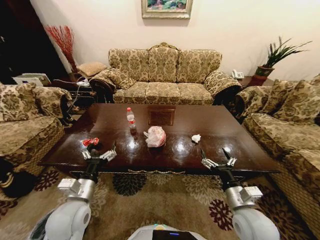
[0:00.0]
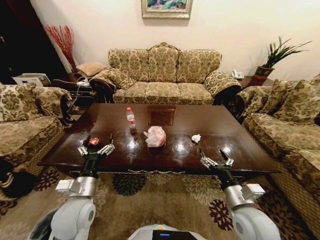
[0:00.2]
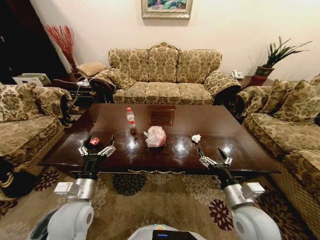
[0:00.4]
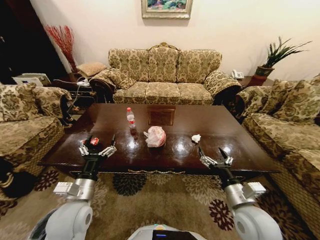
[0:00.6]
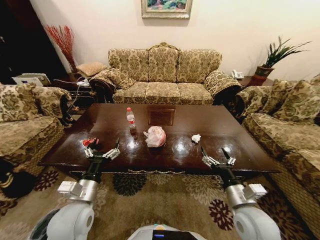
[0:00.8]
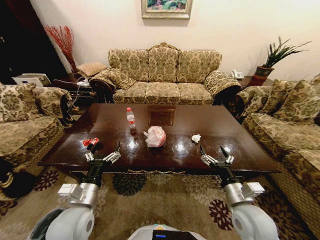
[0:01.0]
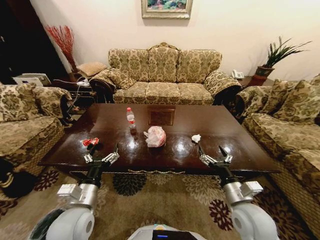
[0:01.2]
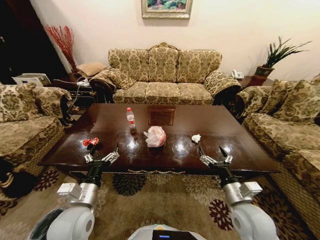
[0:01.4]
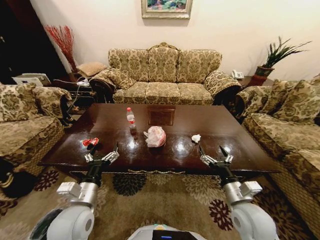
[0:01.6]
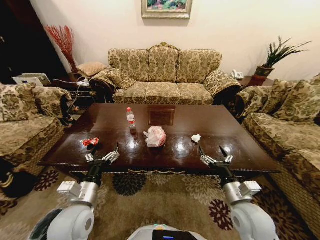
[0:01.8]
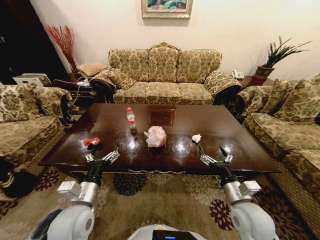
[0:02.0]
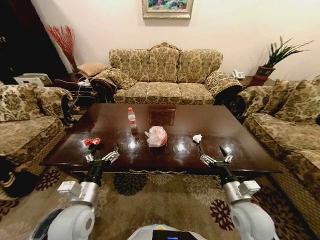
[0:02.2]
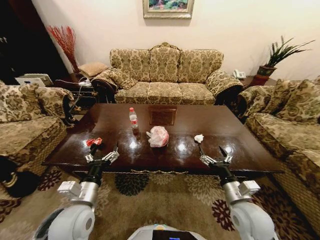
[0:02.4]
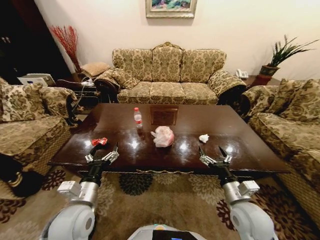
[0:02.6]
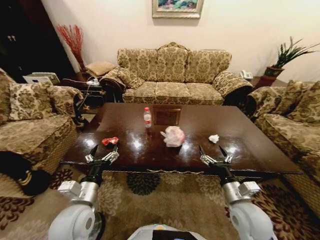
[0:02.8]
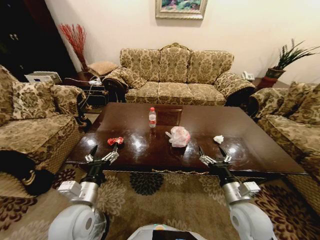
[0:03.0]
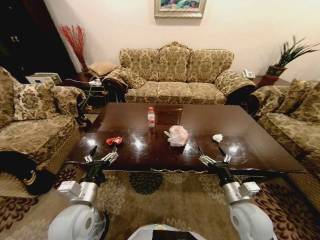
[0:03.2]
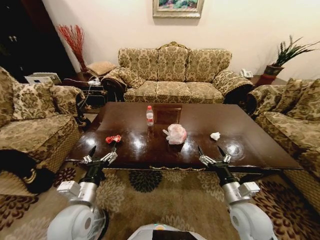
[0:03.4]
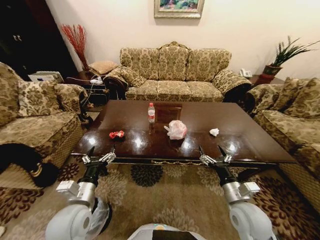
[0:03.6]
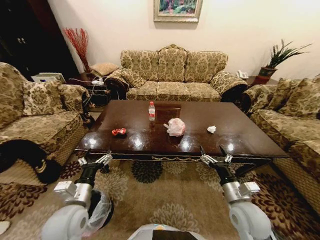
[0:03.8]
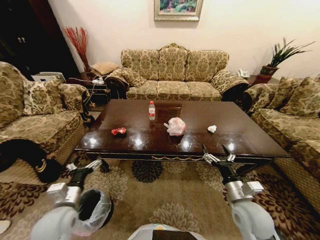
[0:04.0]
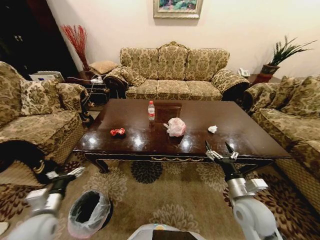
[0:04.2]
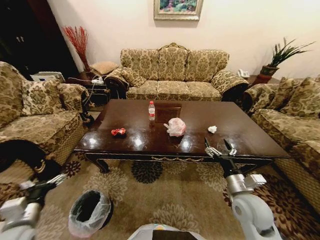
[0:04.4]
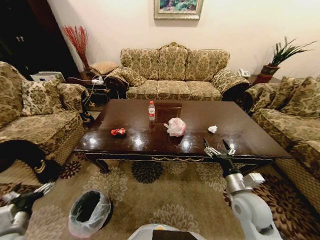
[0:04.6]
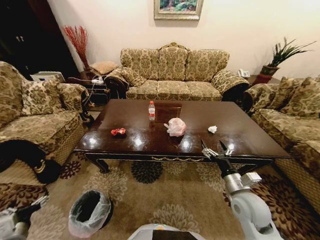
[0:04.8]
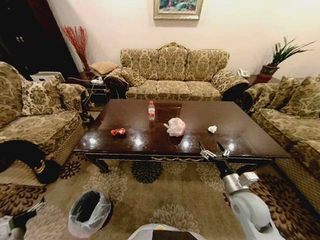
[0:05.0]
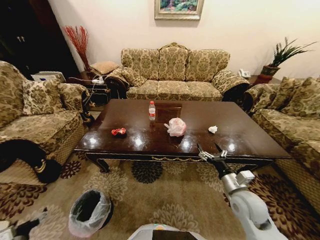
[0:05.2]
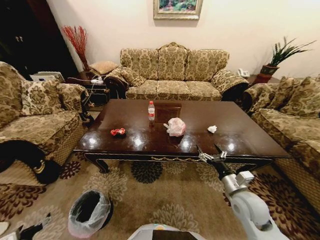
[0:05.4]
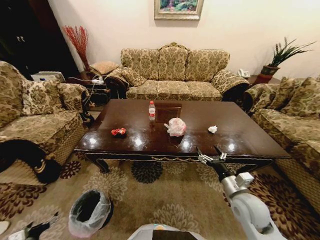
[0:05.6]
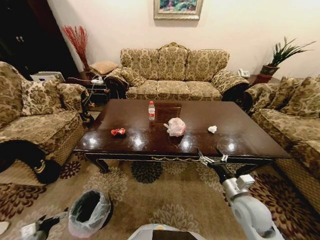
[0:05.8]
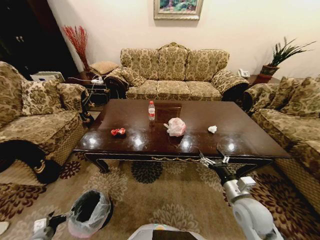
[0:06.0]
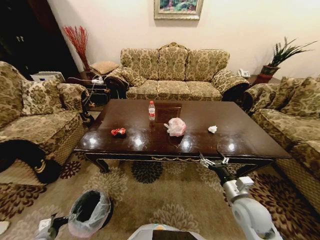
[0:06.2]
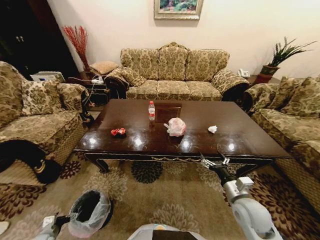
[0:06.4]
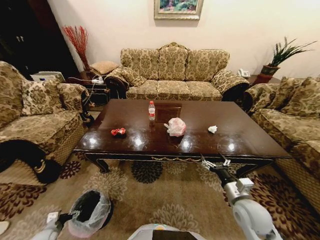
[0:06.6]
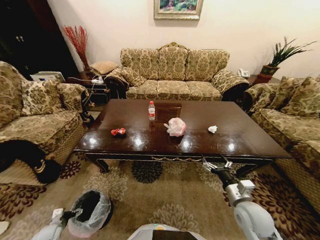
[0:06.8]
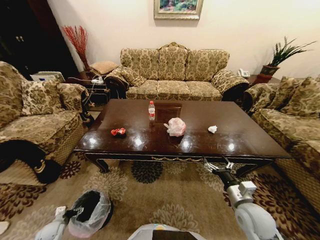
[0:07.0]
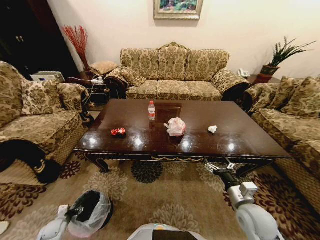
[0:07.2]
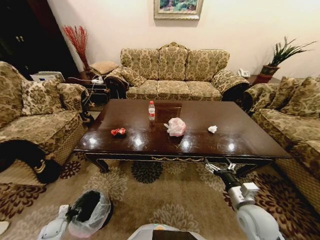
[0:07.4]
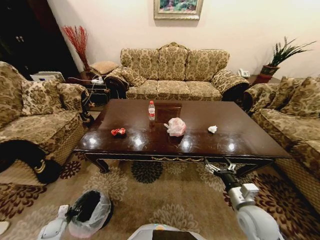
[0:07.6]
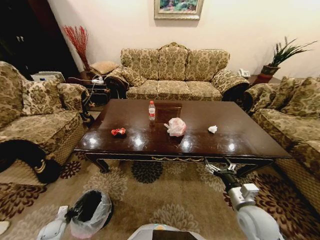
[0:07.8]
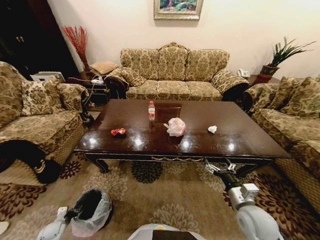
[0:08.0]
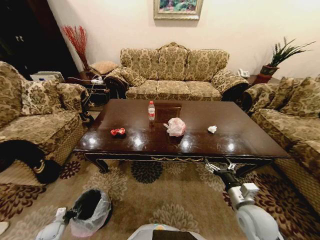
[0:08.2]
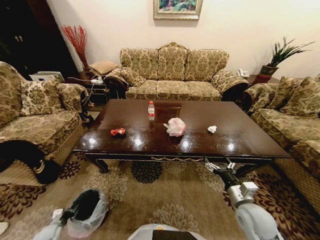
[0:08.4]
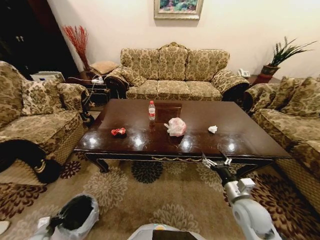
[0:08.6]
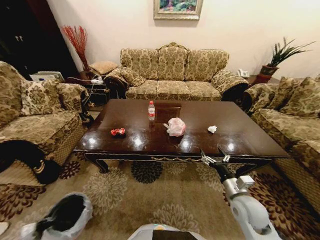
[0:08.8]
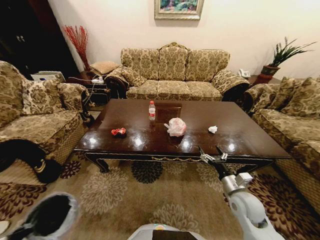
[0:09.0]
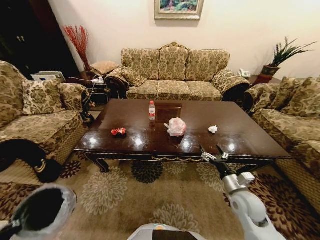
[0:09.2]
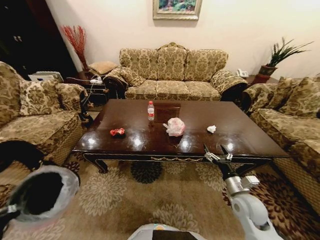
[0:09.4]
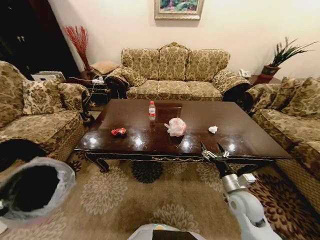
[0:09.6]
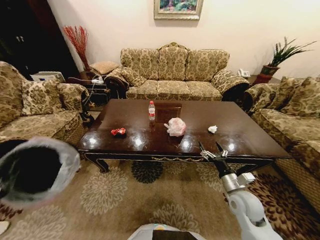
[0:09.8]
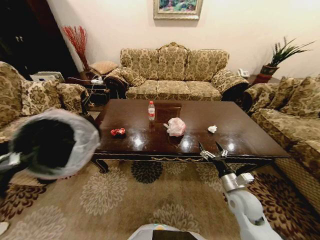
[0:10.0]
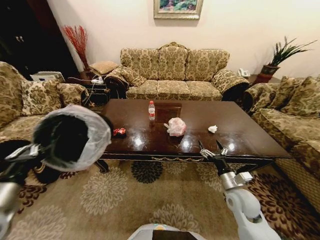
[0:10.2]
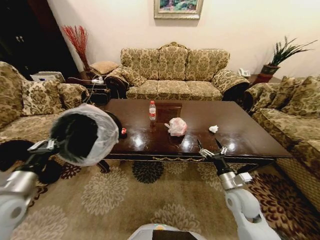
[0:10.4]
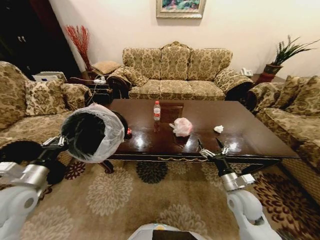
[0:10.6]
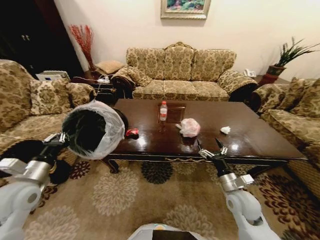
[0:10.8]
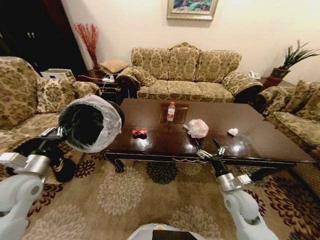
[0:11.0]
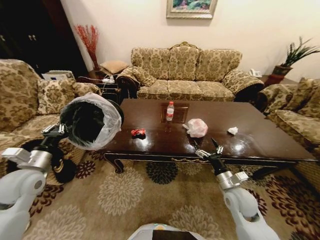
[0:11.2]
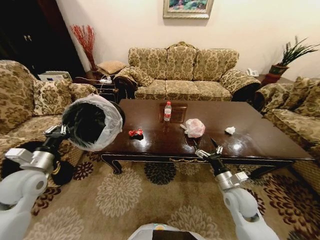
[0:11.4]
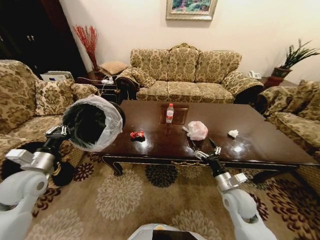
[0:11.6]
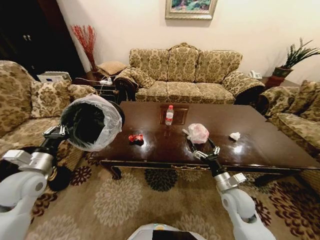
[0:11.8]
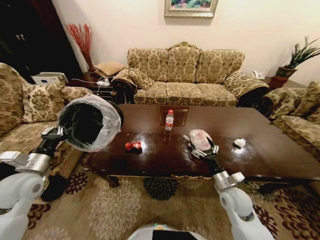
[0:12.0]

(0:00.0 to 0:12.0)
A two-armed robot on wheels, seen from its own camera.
Task of the whole recording: Move to the front of the table and place the trash on the table into the trash bin.
0:03.0 - 0:04.4: The left gripper moves to the left, approximately 15 cm.
0:04.4 - 0:06.0: The left gripper heads downward and to the left, covering approximately 20 cm.
0:06.0 - 0:07.6: The left gripper travels downward and forward by about 15 cm, and closes its fingers.
0:07.6 - 0:09.0: The left gripper moves backward and upward, some 15 cm, and closes up.
0:09.0 - 0:10.4: The left gripper heads upward, to the right and forward, covering about 35 cm.
0:10.4 - 0:12.0: The left gripper shifts about 5 cm forward.

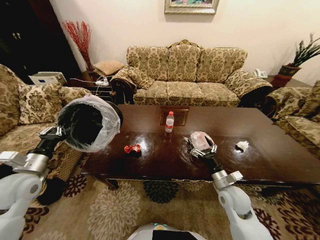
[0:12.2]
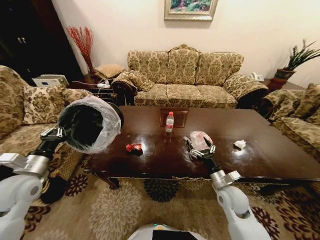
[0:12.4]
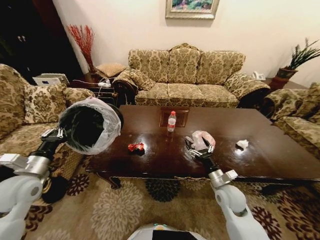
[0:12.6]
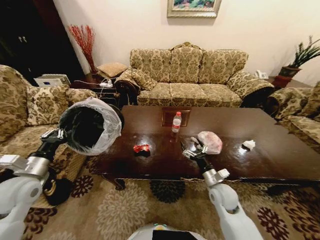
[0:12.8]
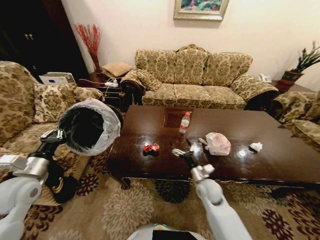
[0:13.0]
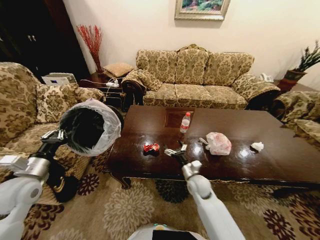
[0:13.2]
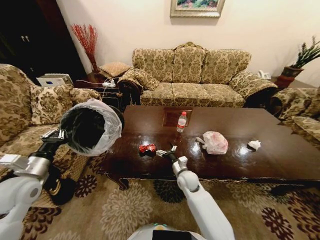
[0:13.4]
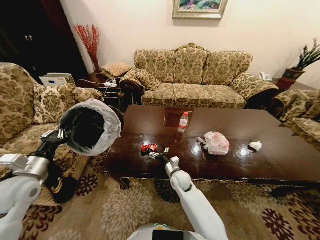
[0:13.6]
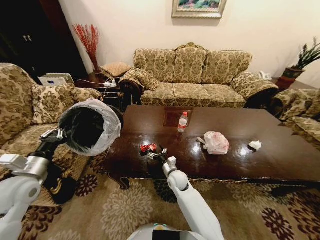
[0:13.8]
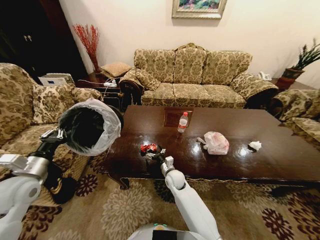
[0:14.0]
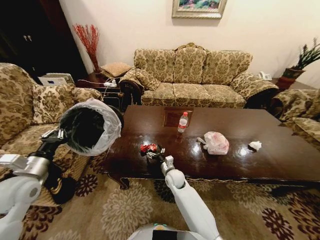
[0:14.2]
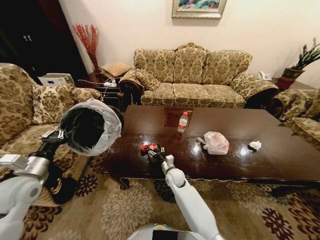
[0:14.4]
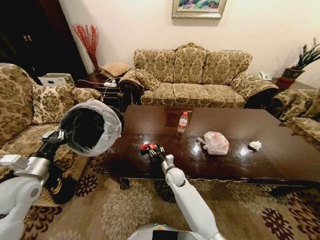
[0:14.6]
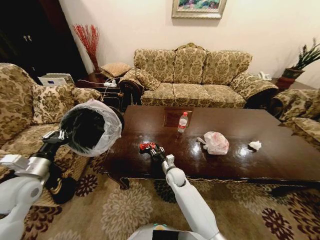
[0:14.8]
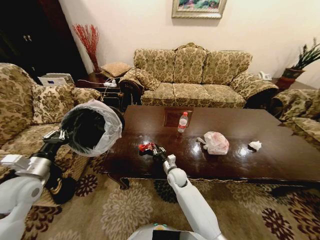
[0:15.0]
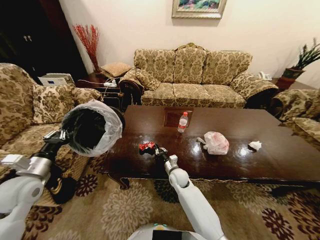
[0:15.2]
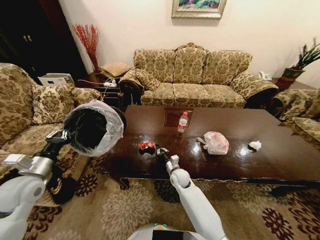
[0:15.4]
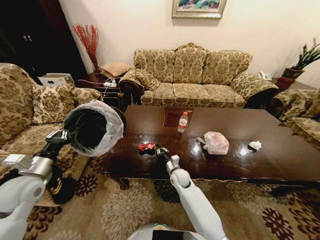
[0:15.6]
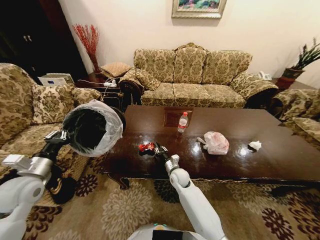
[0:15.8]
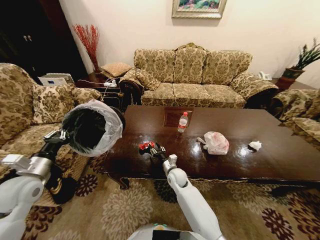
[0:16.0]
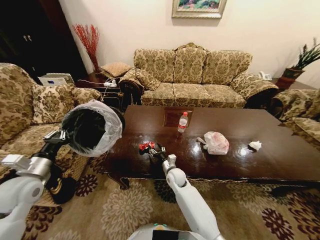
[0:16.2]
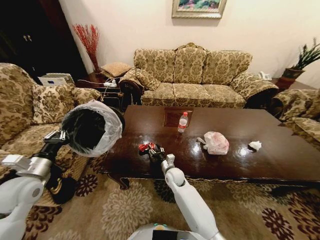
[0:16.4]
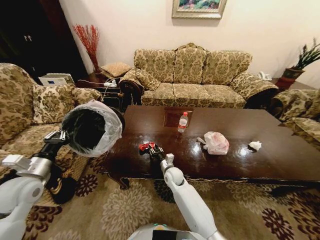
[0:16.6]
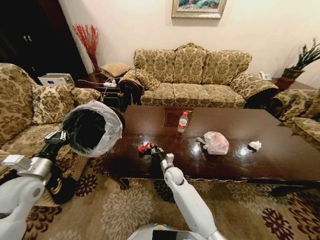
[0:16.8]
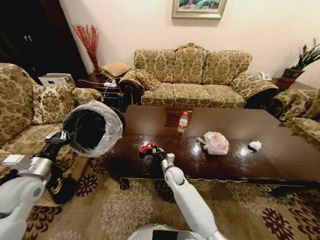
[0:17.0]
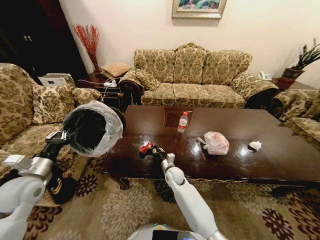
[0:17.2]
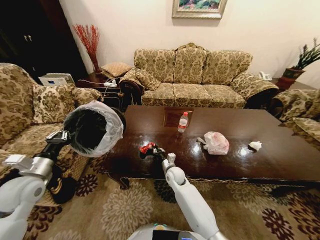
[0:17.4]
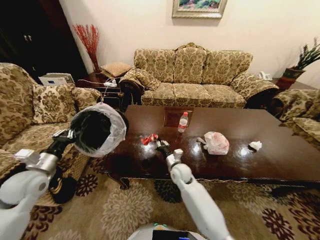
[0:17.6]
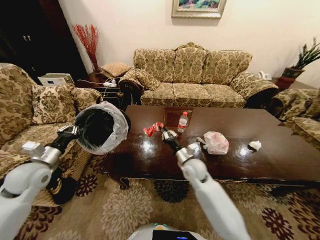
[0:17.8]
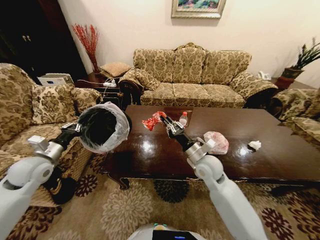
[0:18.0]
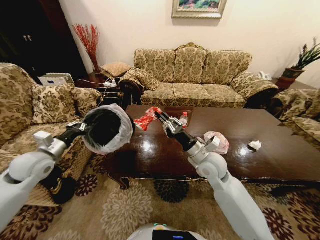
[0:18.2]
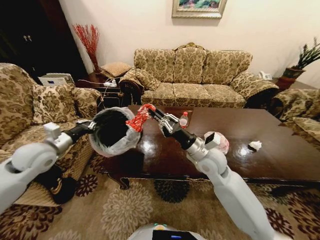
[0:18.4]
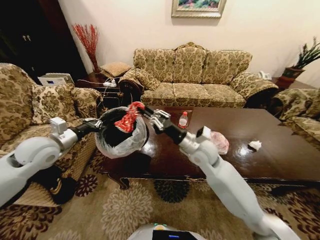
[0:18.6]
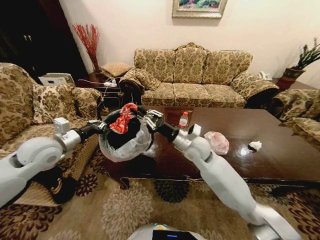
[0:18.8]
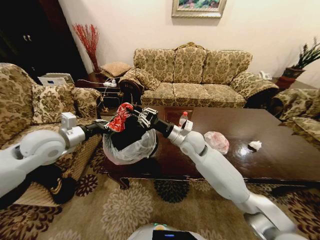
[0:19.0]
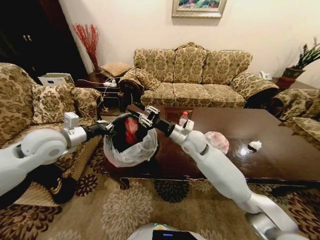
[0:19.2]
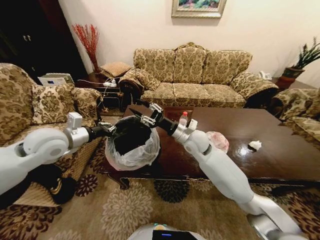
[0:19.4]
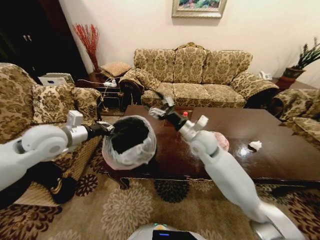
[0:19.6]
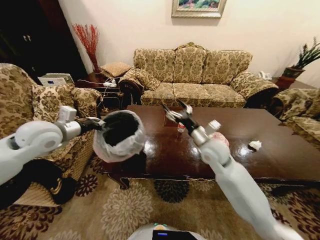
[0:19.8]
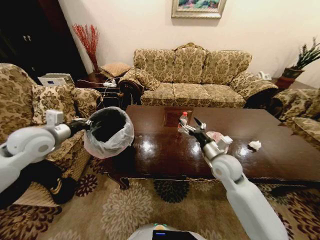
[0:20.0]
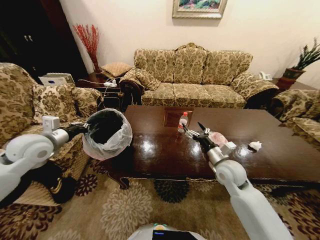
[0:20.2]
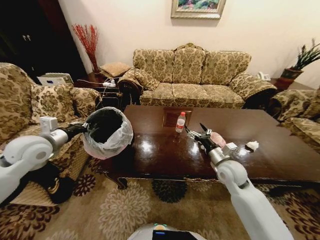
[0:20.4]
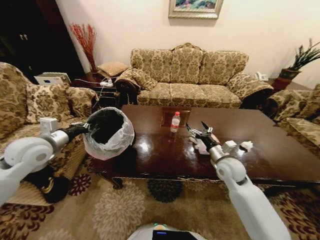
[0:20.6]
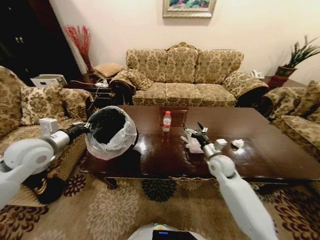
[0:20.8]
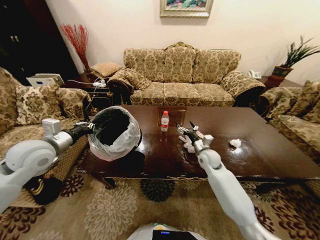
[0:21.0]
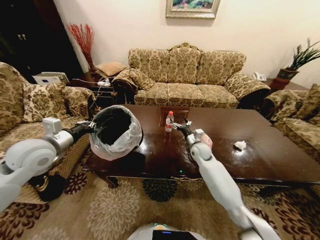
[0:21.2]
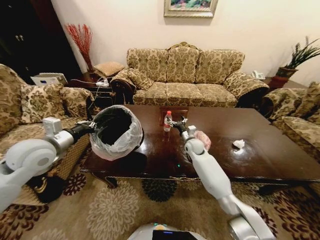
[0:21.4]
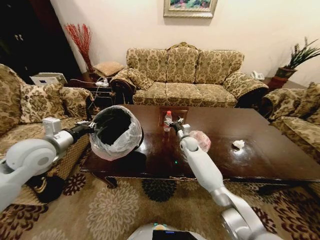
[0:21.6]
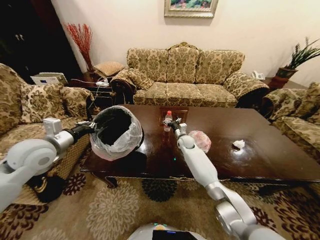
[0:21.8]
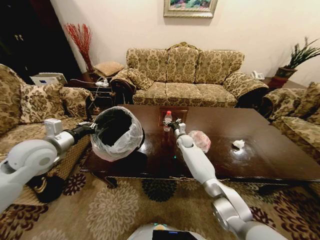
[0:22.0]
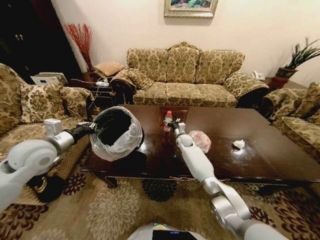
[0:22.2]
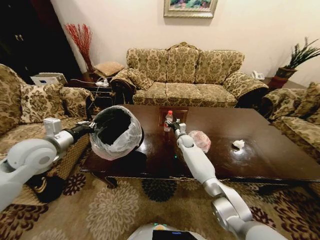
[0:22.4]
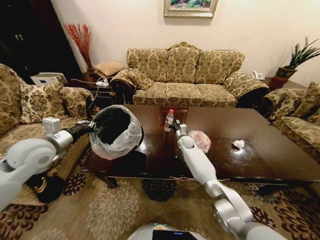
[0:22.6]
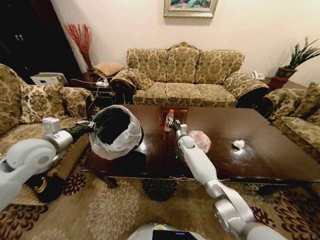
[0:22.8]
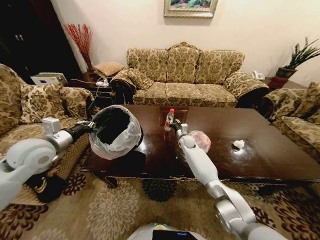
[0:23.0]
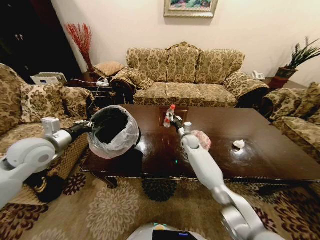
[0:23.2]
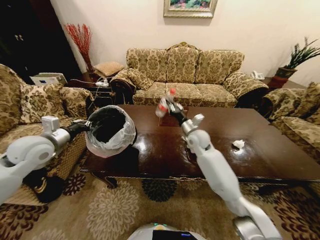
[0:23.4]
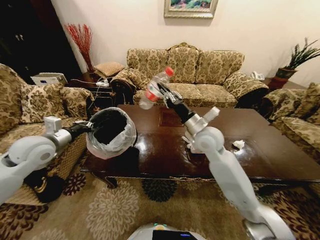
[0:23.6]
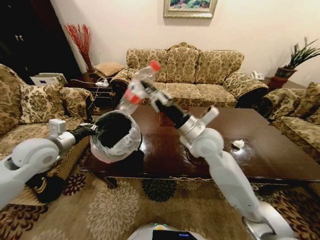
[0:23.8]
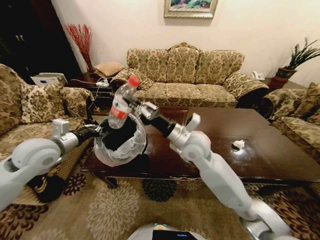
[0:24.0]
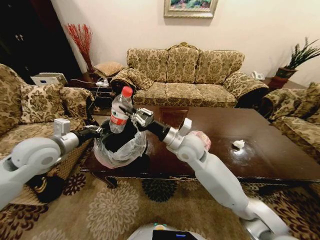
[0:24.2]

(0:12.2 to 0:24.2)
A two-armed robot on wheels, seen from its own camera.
Task of the whole recording: Move to the front of the table and place the trash on the table into the trash bin.
0:12.2 - 0:13.8: The right gripper moves to the left, forward and downward, approximately 25 cm.
0:13.8 - 0:15.2: The right gripper closes.
0:15.2 - 0:16.6: The grippers make only small movements.
0:16.6 - 0:18.2: The right gripper heads upward and to the right, covering approximately 25 cm, and closes its fingers. Meanwhile the left gripper shifts about 5 cm forward.
0:18.2 - 0:19.8: The left gripper shifts approximately 10 cm upward and to the right. Meanwhile the right gripper goes to the left and returns, approximately 5 cm each way, and opens its fingers.
0:19.8 - 0:21.2: The right gripper is displaced downward and forward by about 15 cm; the left gripper moves roughly 5 cm.
0:21.2 - 0:22.6: The right gripper travels forward by some 10 cm, and closes.
0:22.6 - 0:24.2: The right gripper shifts some 30 cm upward and backward, and closes.
